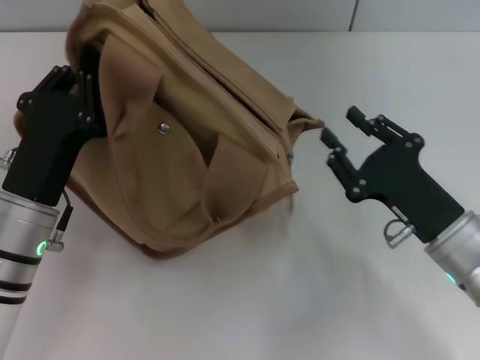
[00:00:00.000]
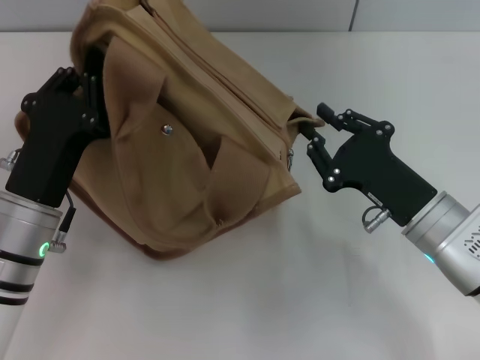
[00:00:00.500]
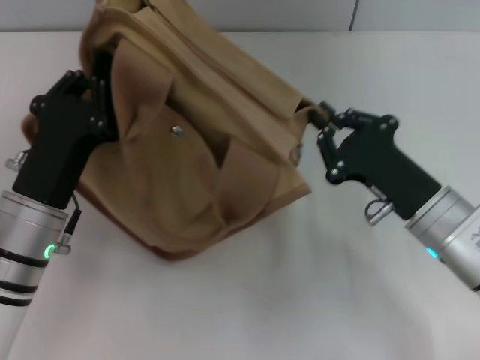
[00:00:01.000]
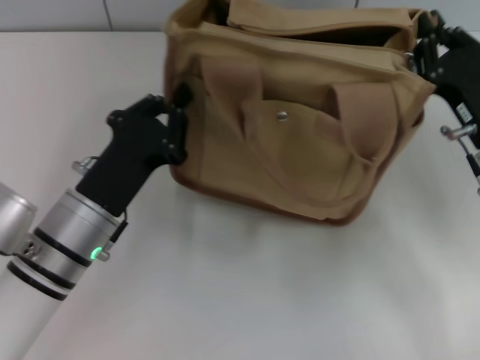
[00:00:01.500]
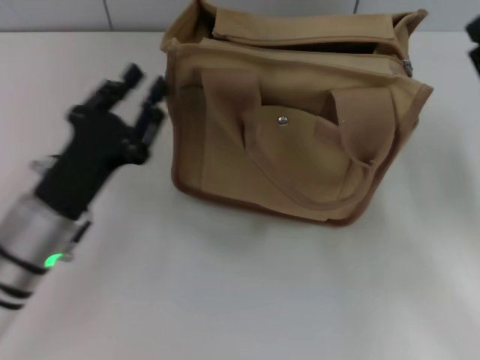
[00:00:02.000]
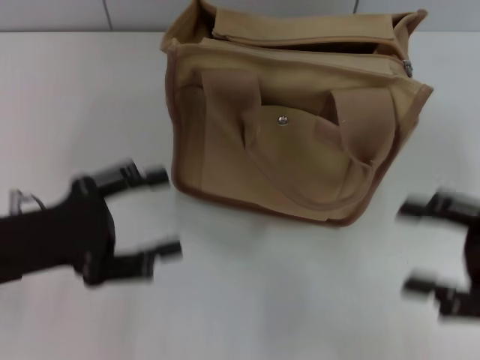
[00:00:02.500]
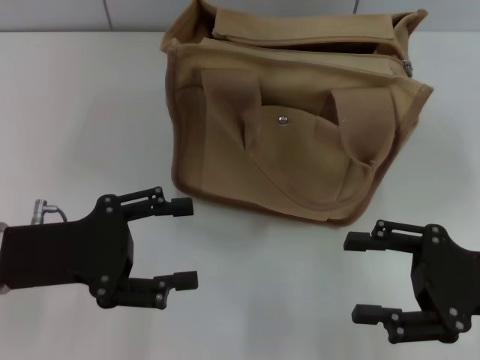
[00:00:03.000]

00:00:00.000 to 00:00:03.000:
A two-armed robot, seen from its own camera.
Step, 00:00:00.000 to 00:00:01.500: Grab the bag with your left hand.
00:00:00.000 to 00:00:01.500: The right gripper is displaced forward by roughly 5 cm.
00:00:01.500 to 00:00:03.000: The left gripper goes roughly 10 cm to the left, and opens its fingers; the right gripper moves backward, roughly 10 cm, and opens its fingers.

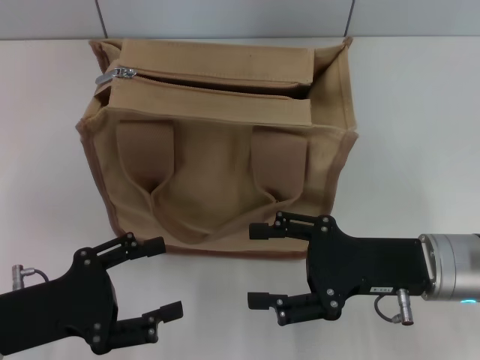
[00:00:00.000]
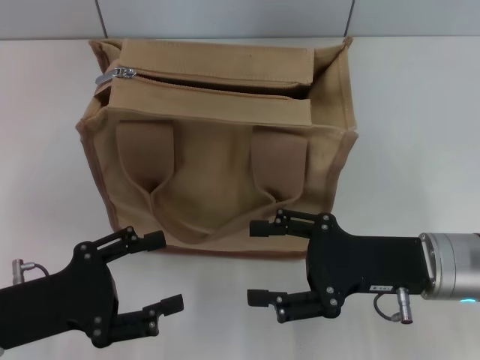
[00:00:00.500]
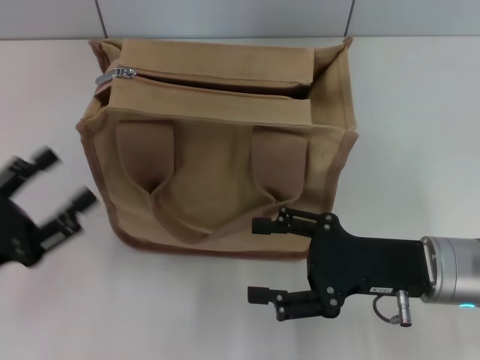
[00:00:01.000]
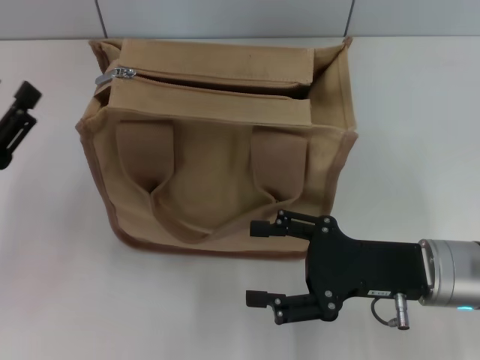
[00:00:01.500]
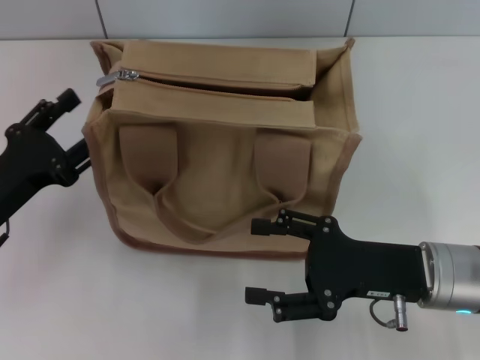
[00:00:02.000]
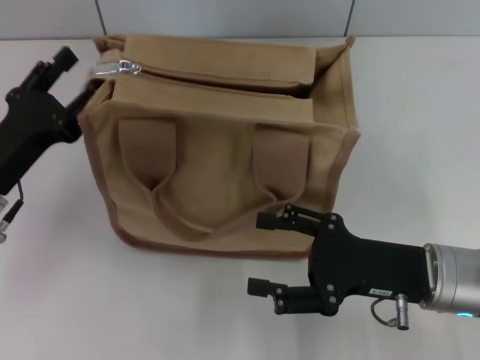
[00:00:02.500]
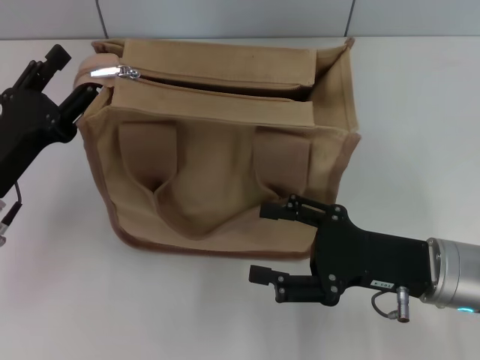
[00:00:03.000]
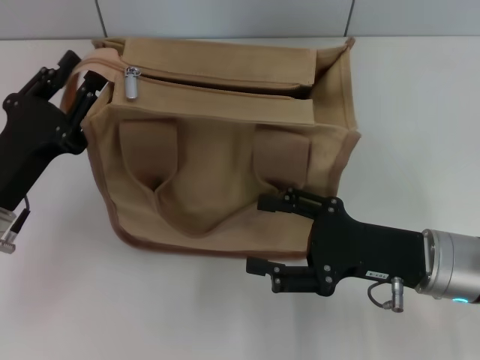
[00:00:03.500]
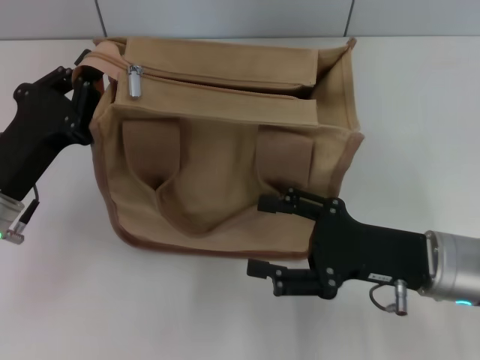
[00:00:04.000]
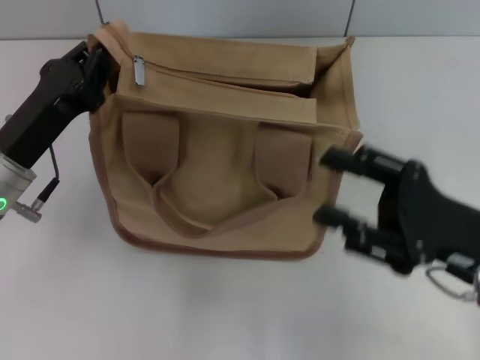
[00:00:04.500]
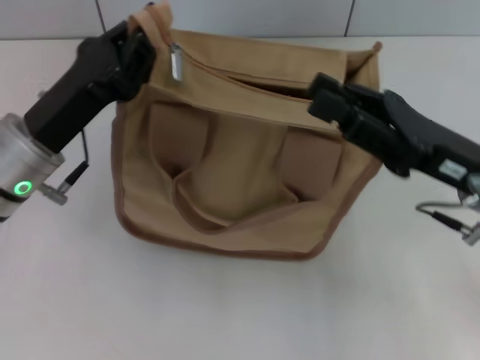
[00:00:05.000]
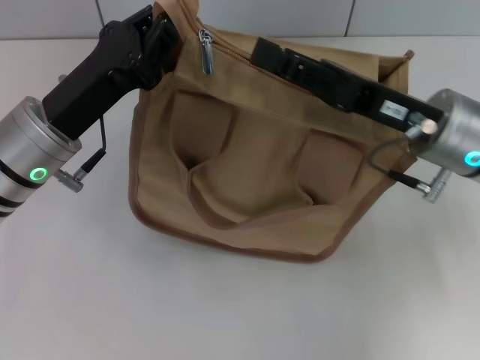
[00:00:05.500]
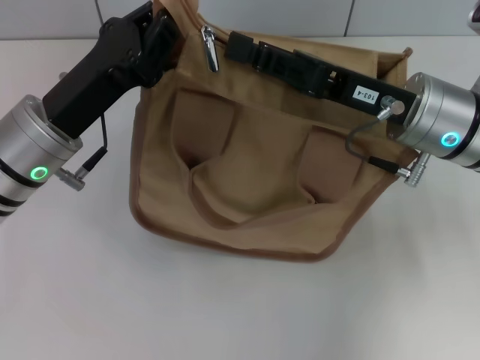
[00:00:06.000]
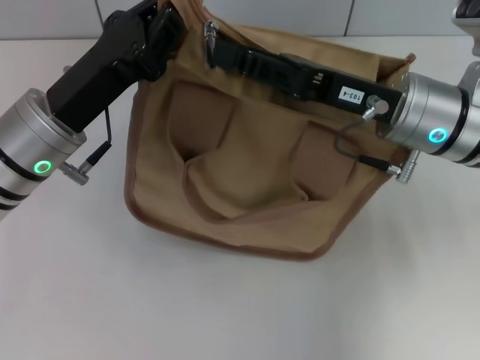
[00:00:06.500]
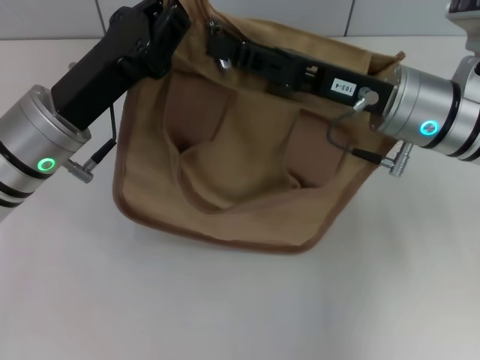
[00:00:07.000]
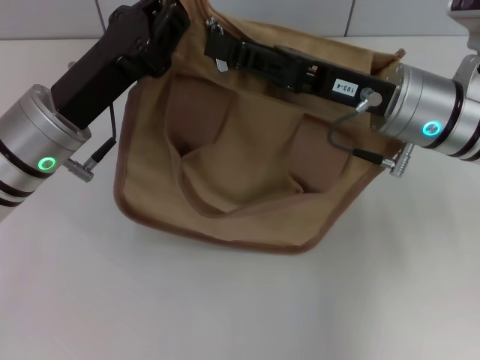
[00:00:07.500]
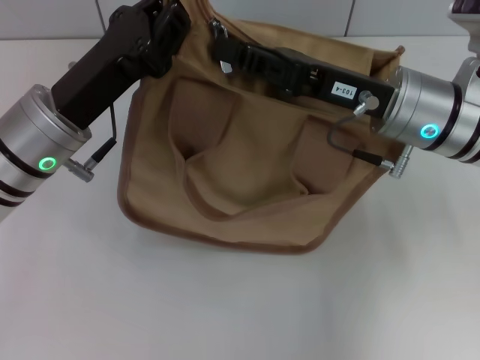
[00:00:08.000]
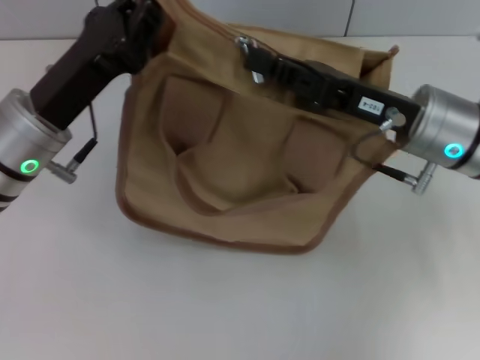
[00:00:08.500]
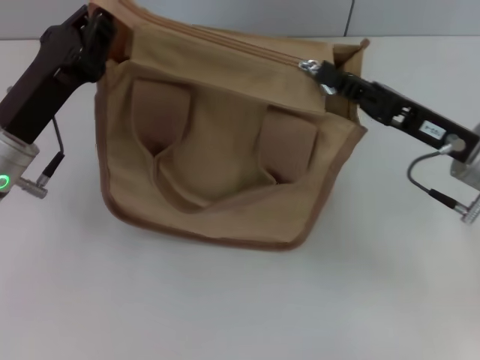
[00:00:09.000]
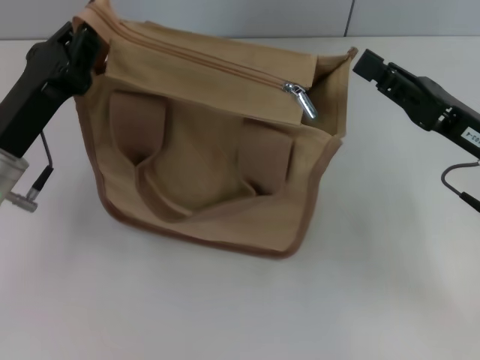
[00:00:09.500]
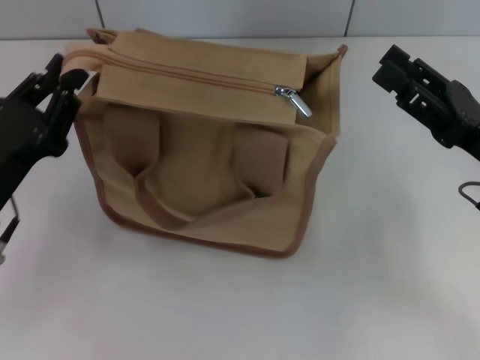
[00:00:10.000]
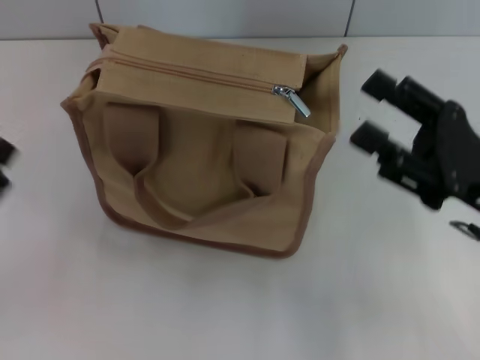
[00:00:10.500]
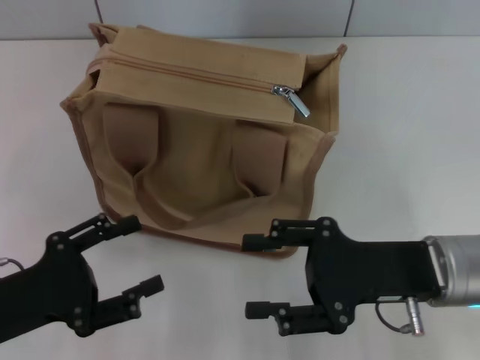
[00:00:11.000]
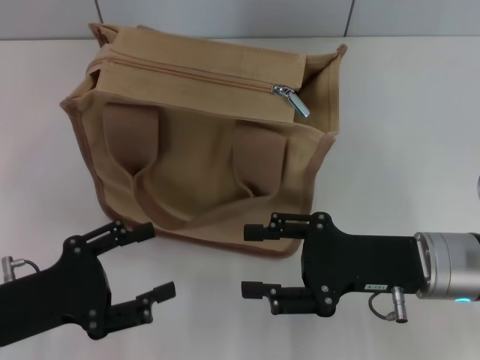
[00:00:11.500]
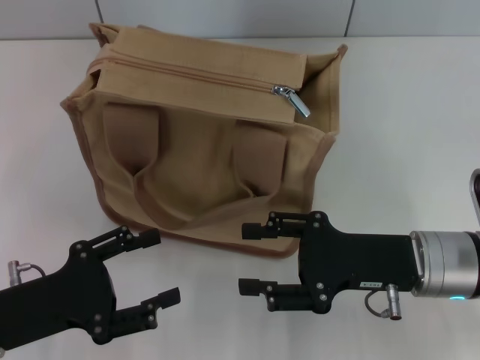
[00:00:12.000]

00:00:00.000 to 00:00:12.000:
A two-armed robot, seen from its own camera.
Step, 00:00:00.000 to 00:00:09.000: Pull up the zipper with your right hand.
Step, 00:00:09.500 to 00:00:10.000: Grab the zipper with your left hand.
00:00:00.000 to 00:00:02.000: The left gripper moves forward, about 5 cm.
00:00:02.000 to 00:00:04.000: The left gripper closes its fingers.
00:00:04.000 to 00:00:06.000: The right gripper travels forward and upward by roughly 10 cm, and closes up. Meanwhile the left gripper travels to the right by about 5 cm.
00:00:06.000 to 00:00:08.000: The grippers move only a little.
00:00:08.000 to 00:00:10.000: The left gripper shifts some 10 cm to the left, backward and downward. The right gripper travels to the right and backward by roughly 15 cm, and opens its fingers.
00:00:10.000 to 00:00:12.000: The right gripper is displaced to the left by roughly 5 cm. The left gripper shifts approximately 5 cm backward, and opens.

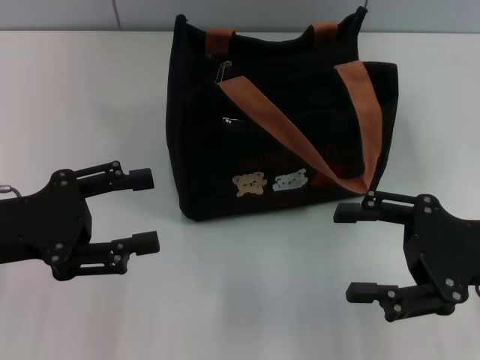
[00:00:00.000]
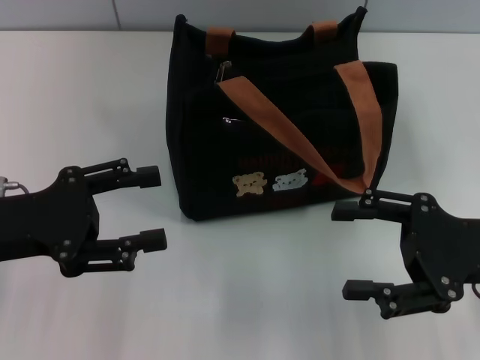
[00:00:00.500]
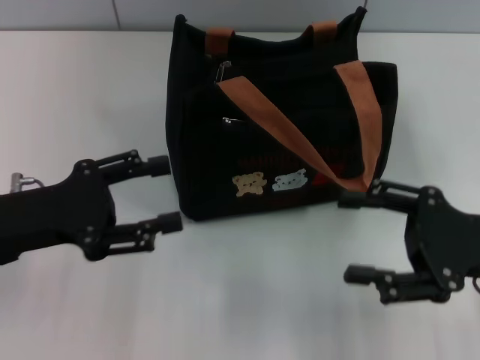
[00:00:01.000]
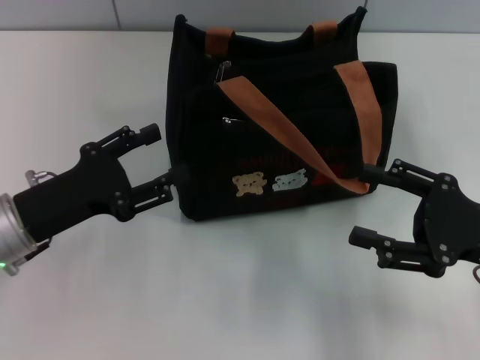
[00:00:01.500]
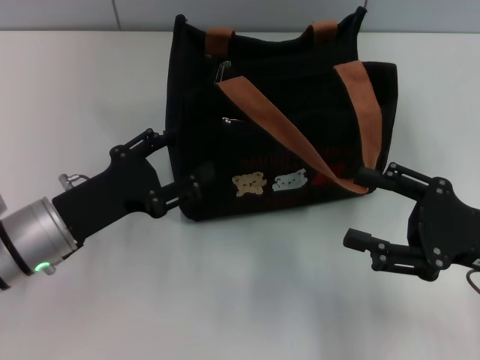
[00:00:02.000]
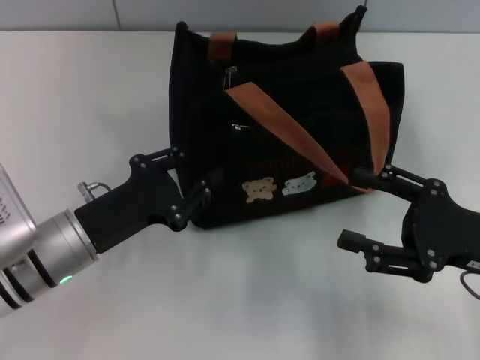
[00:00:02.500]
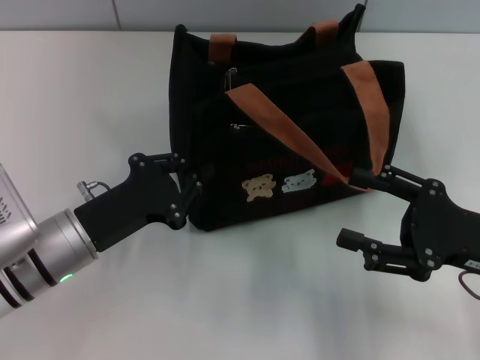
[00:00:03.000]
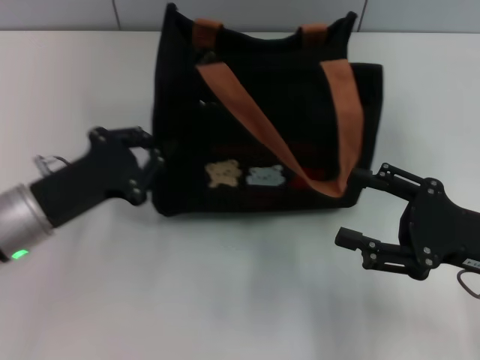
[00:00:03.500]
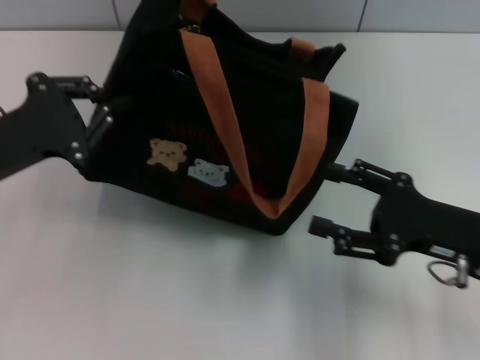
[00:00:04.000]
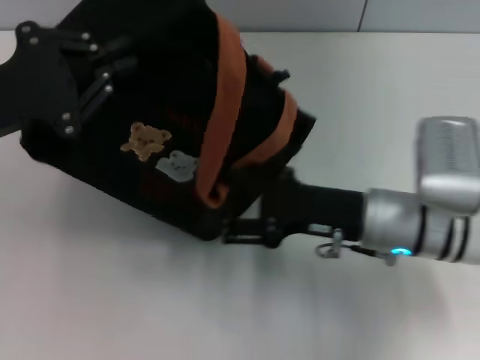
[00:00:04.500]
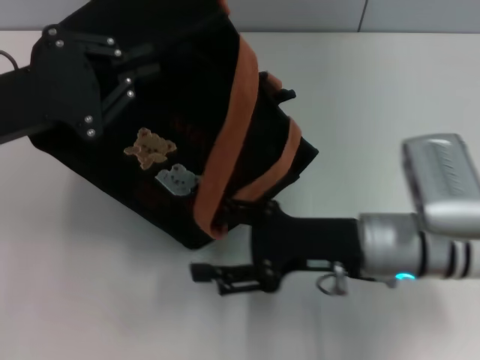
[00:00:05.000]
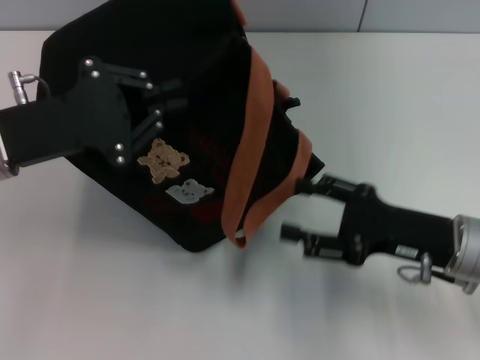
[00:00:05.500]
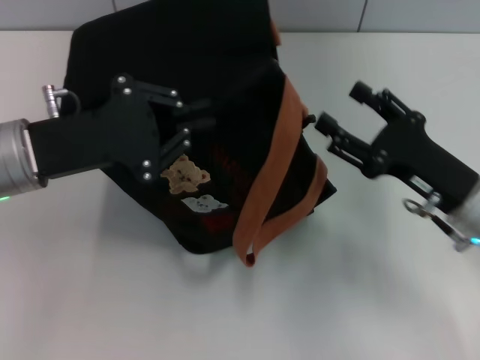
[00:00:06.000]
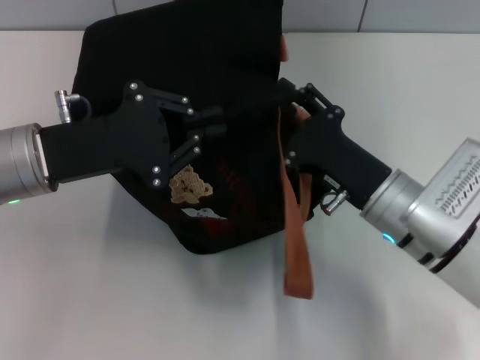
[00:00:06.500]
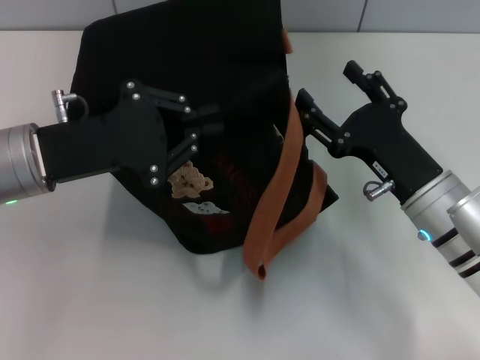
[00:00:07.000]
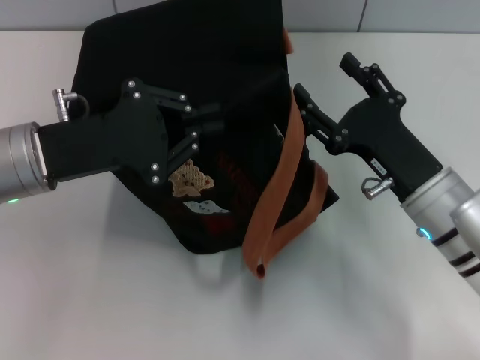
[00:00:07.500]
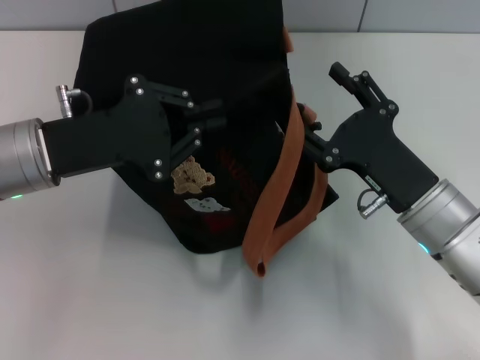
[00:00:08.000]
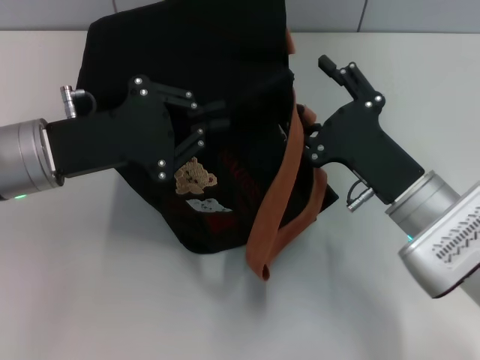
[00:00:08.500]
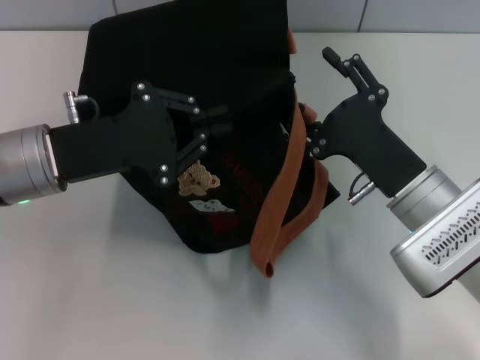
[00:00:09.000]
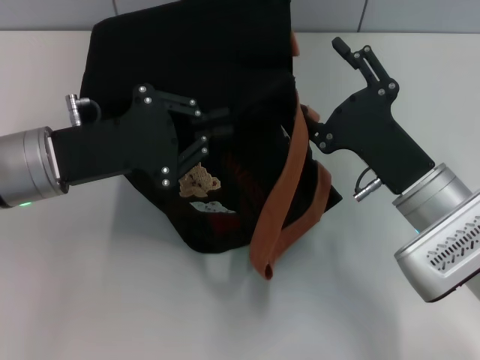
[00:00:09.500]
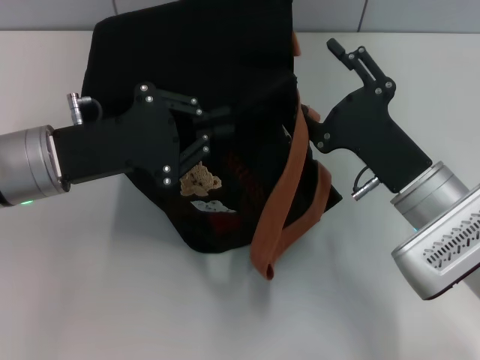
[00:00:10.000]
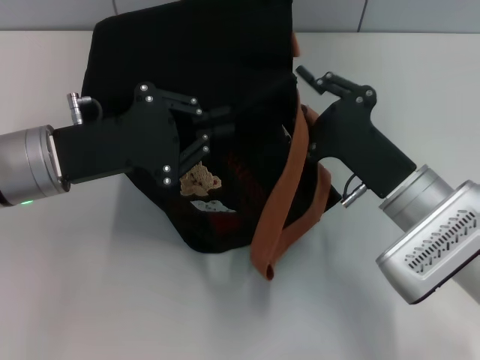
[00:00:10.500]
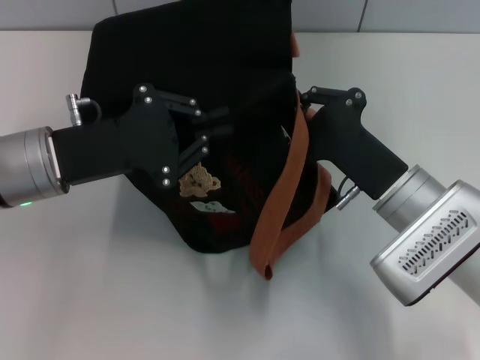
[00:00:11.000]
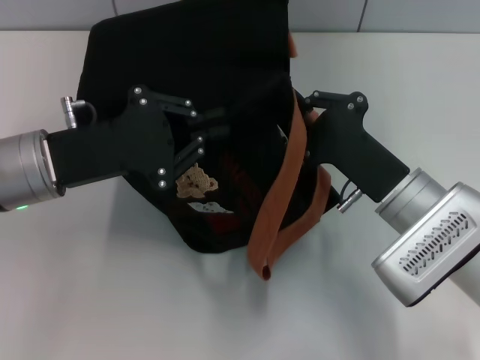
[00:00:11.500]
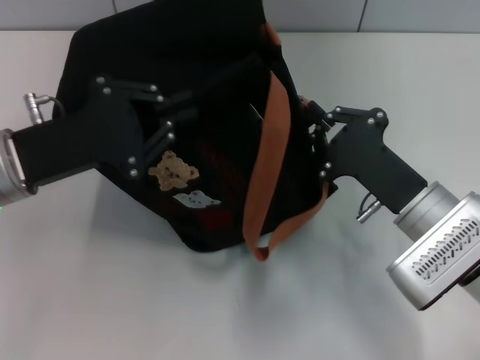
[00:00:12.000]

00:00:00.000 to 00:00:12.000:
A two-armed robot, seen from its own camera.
00:00:00.000 to 00:00:02.000: The left gripper goes some 10 cm downward and to the right.
00:00:02.000 to 00:00:04.000: The left gripper goes some 10 cm upward and to the left, and closes its fingers.
00:00:04.000 to 00:00:06.000: The right gripper goes to the left and returns, some 10 cm each way; the left gripper shifts roughly 5 cm to the right.
00:00:10.000 to 00:00:12.000: The right gripper closes.
